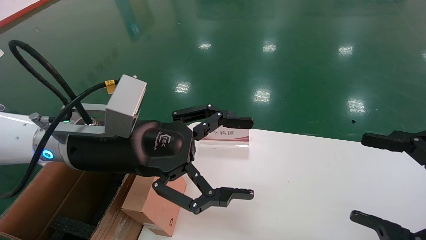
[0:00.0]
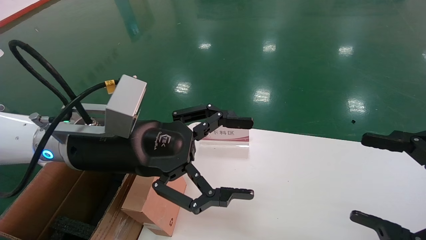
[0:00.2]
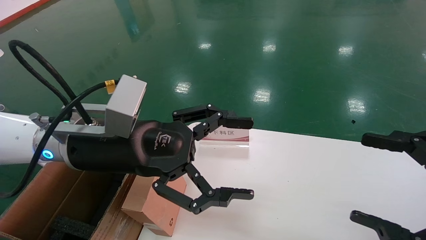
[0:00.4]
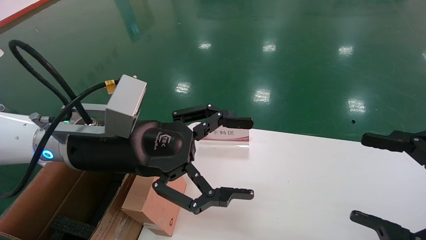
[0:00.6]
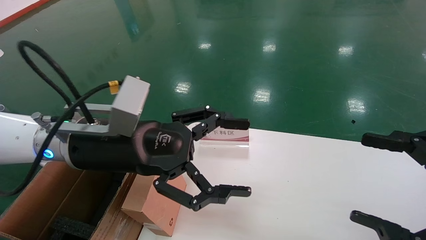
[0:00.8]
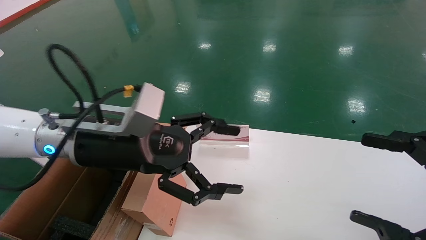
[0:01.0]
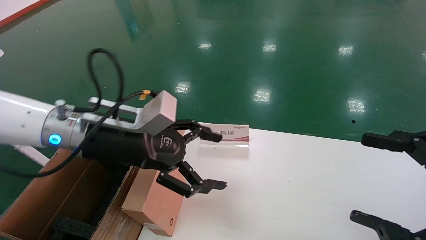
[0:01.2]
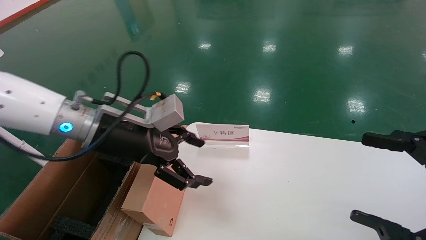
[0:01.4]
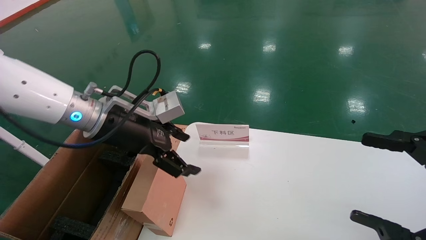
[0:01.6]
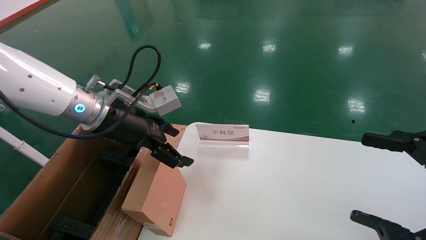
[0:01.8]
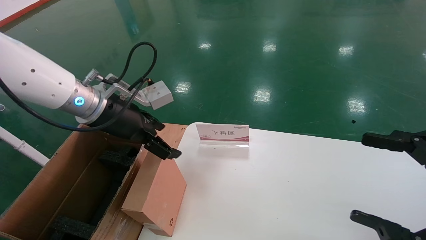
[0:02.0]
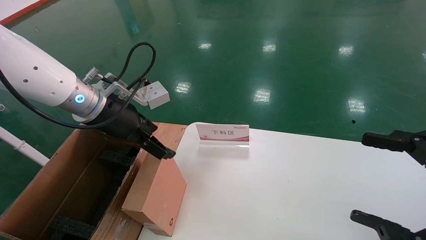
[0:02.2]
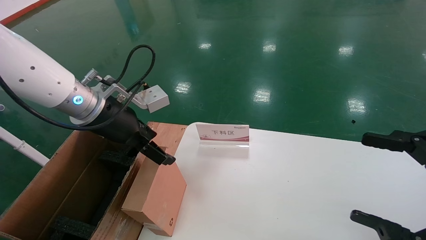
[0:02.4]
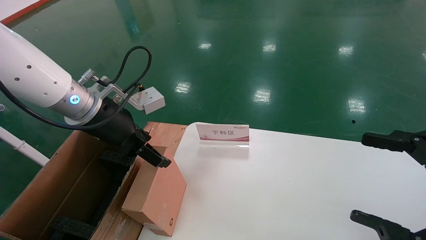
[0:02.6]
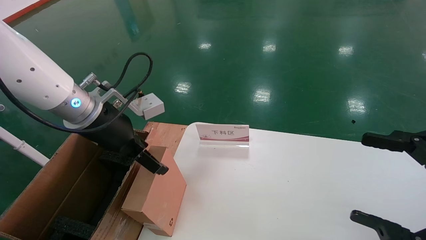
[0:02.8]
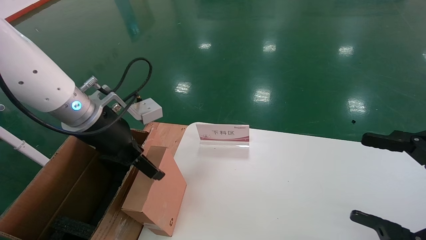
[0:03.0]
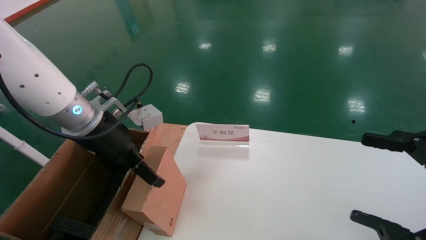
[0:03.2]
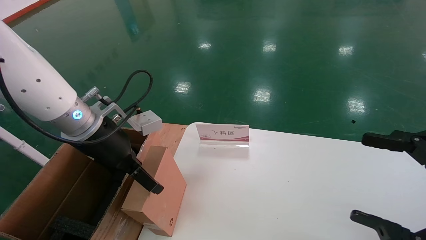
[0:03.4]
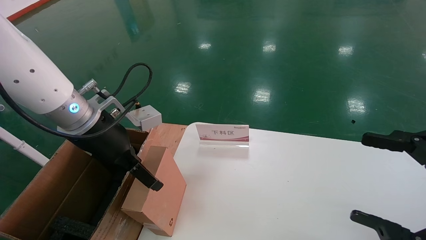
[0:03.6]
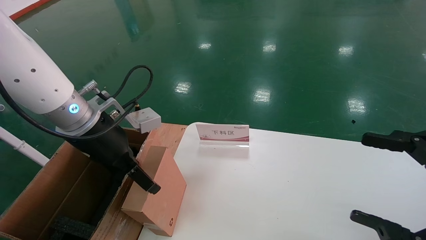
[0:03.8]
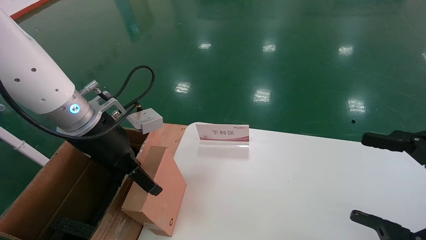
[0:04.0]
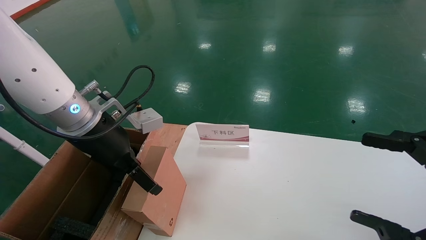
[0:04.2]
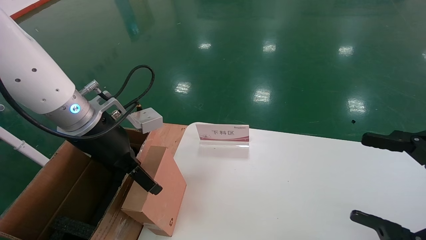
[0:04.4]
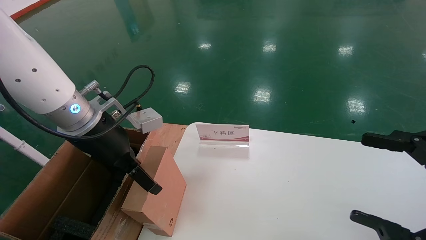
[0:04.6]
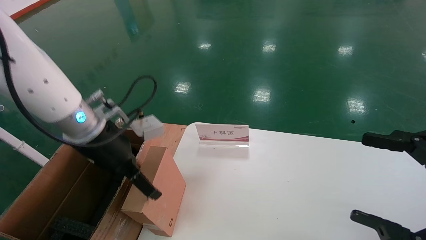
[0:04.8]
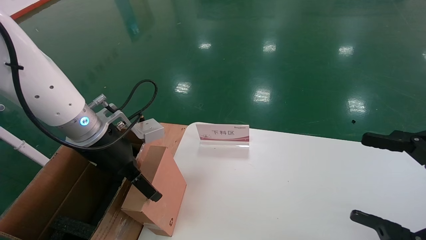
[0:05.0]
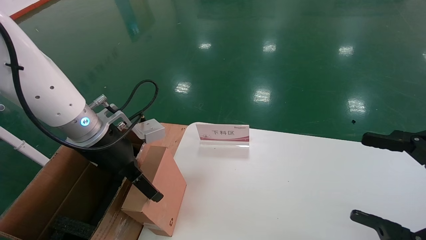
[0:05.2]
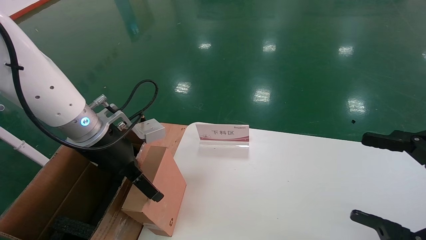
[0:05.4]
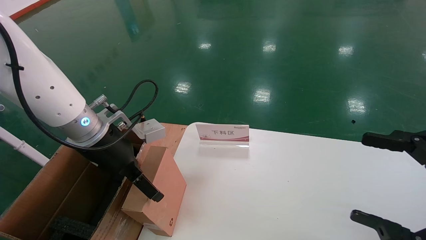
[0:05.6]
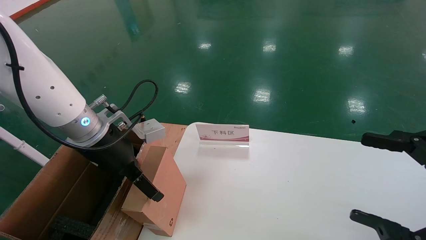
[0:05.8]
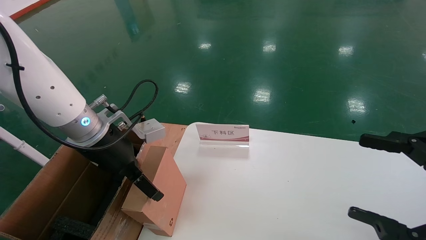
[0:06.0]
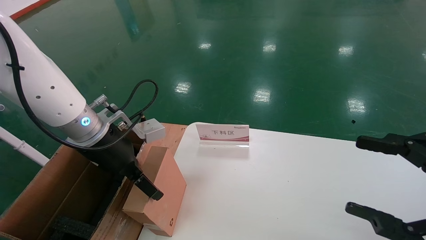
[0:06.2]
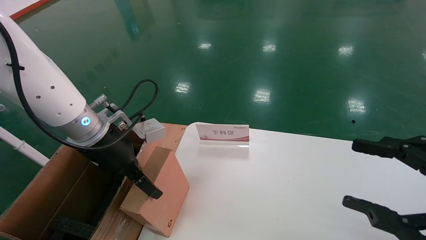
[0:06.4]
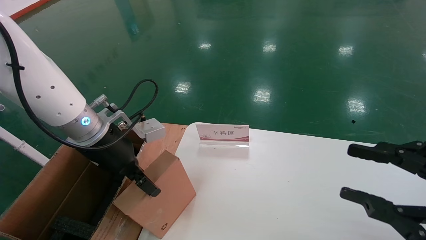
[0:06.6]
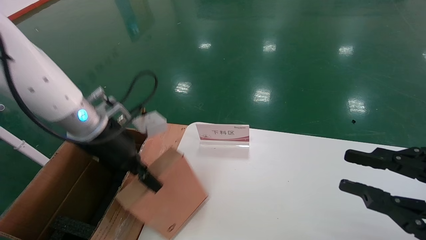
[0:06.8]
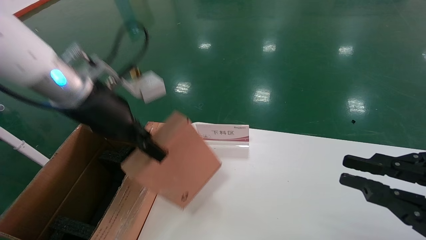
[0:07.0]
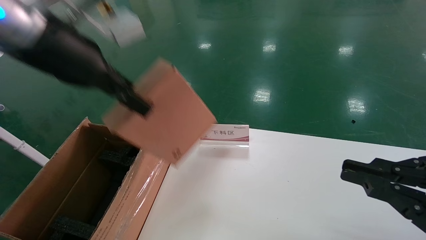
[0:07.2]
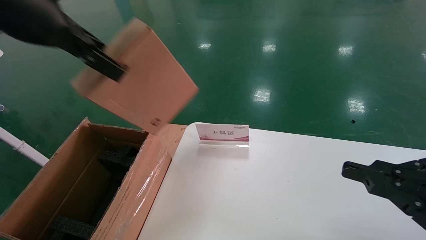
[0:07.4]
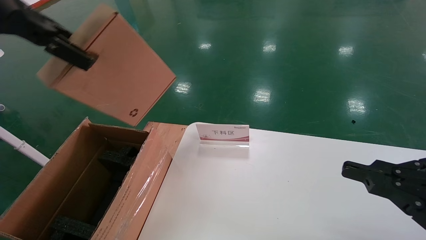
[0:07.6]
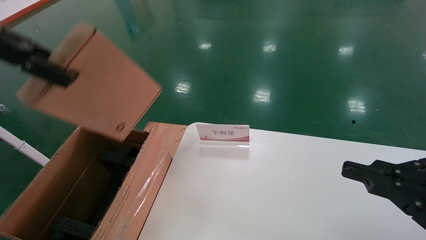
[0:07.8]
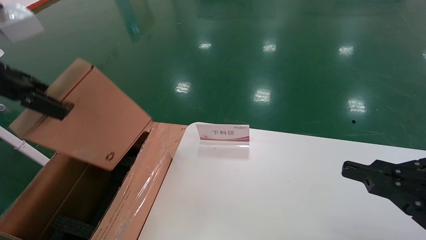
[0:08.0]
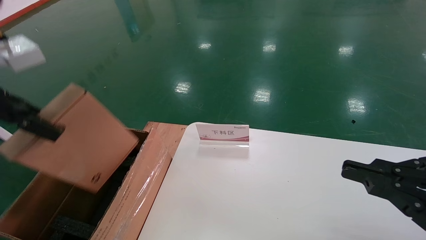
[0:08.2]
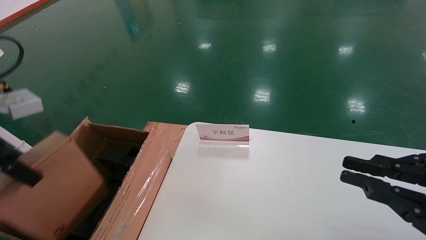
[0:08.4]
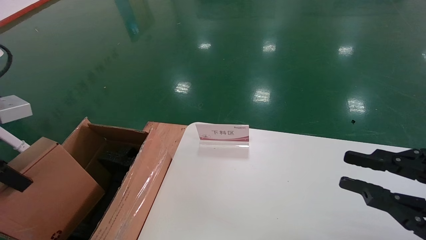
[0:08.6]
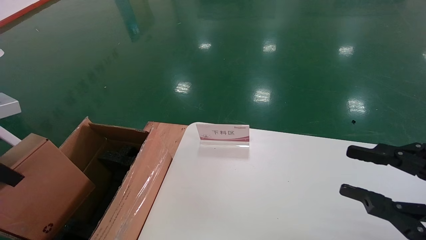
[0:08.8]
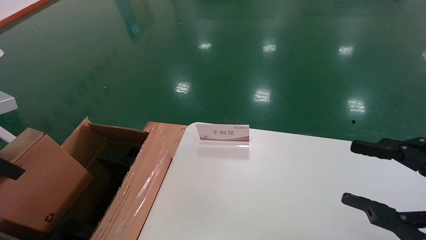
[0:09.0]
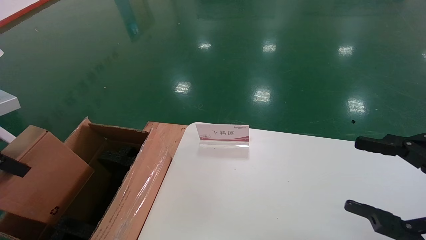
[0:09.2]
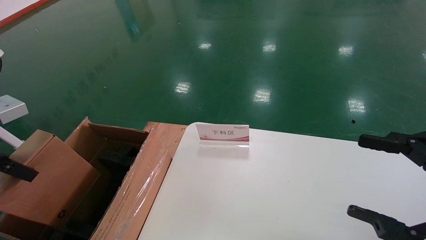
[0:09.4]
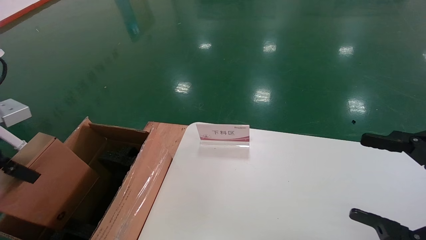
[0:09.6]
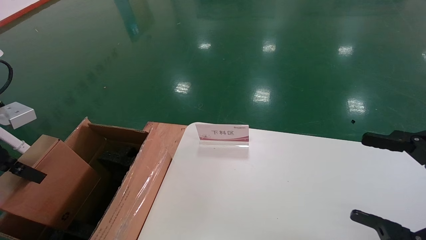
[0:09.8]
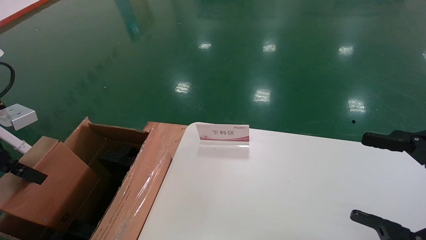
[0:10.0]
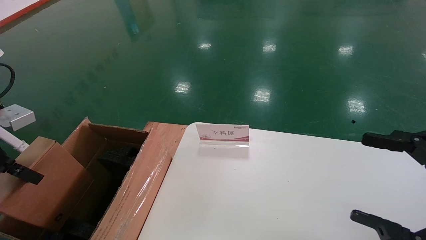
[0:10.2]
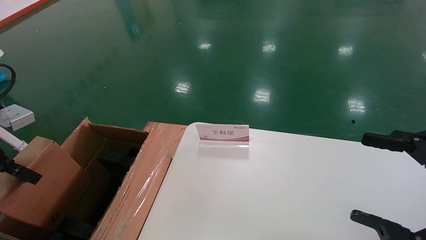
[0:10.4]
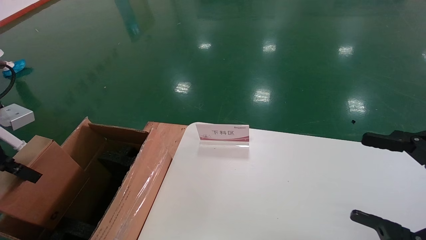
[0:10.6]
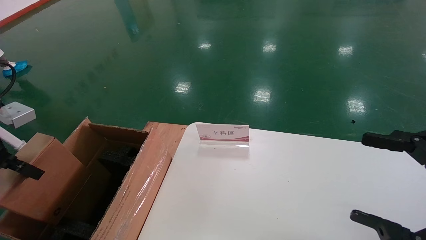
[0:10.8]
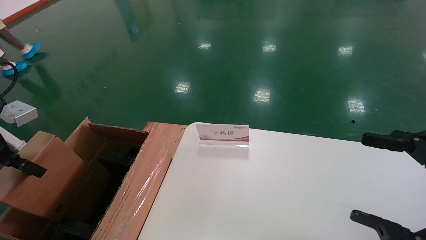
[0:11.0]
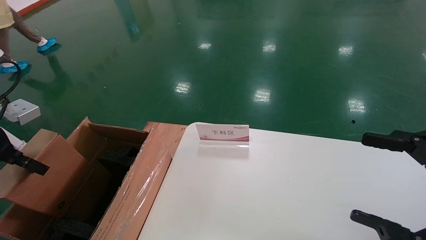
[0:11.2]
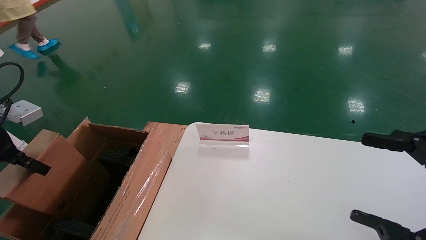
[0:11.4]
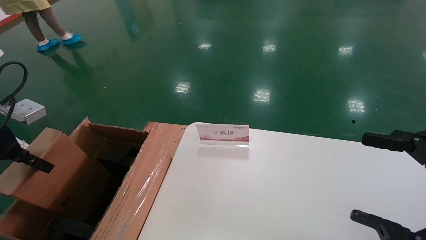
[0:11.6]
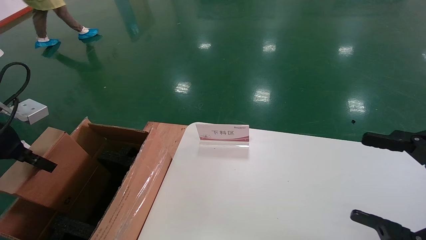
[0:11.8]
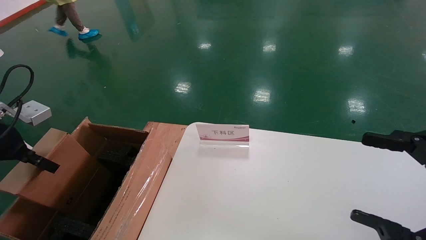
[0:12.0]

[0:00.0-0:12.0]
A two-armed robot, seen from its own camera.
Task of the whole recording: pick up the small cardboard box and load it into the large cardboard box.
Step, 0:01.0 to 0:06.6: Pick up the mouse and power cord box.
0:00.0 to 0:01.6: The left gripper travels forward by approximately 5 cm.
0:03.0 to 0:06.0: The grippers make only small movements.
0:06.0 to 0:07.6: The left gripper goes roughly 25 cm upward and backward, and closes its fingers. Meanwhile the right gripper closes.
0:07.6 to 0:09.0: The left gripper is displaced downward and to the left by roughly 20 cm. The right gripper opens.
0:09.0 to 0:10.4: The right gripper opens its fingers, while the left gripper changes place by some 5 cm.
0:10.4 to 0:12.0: The grippers move only a little.

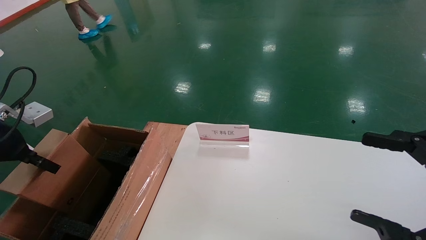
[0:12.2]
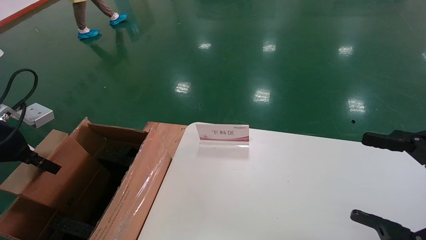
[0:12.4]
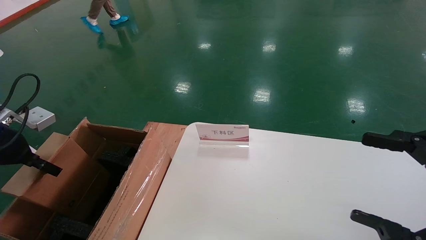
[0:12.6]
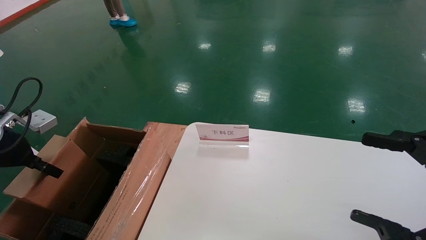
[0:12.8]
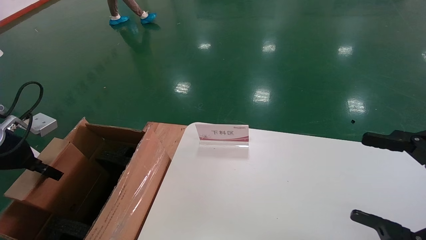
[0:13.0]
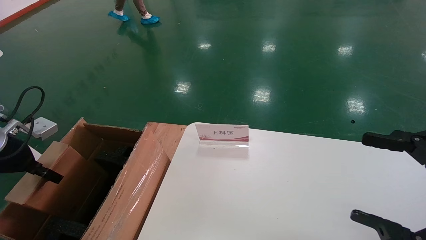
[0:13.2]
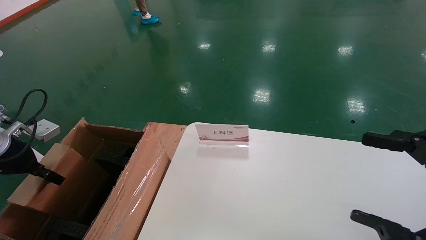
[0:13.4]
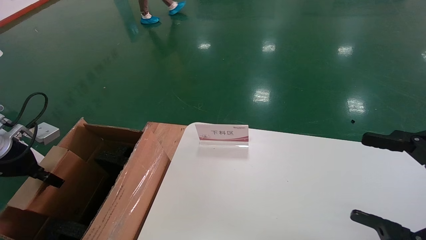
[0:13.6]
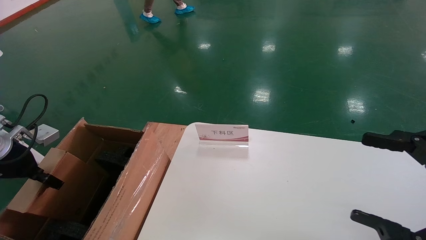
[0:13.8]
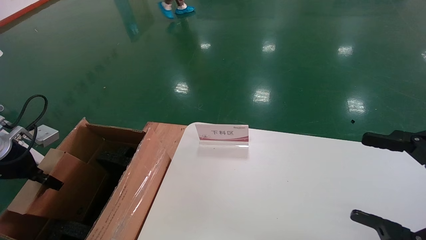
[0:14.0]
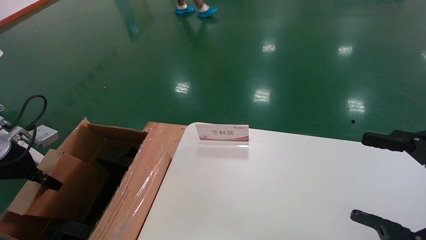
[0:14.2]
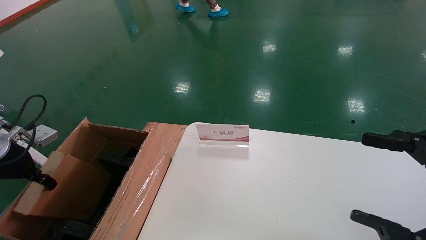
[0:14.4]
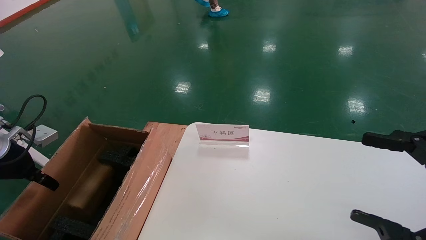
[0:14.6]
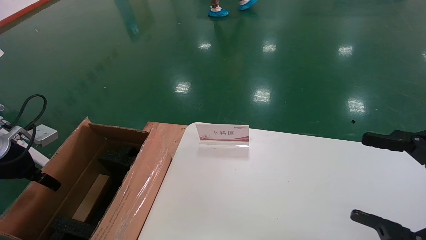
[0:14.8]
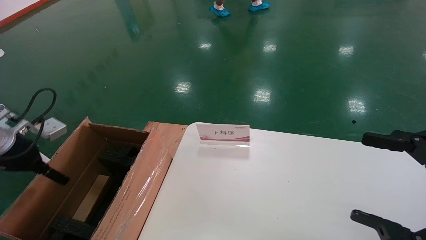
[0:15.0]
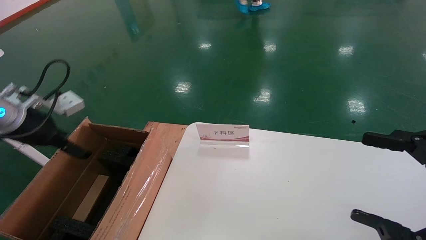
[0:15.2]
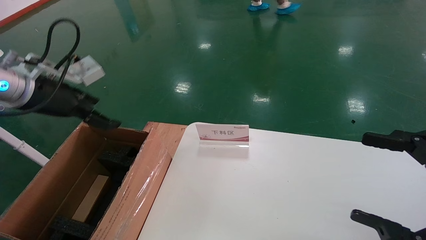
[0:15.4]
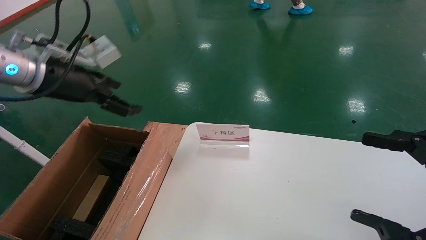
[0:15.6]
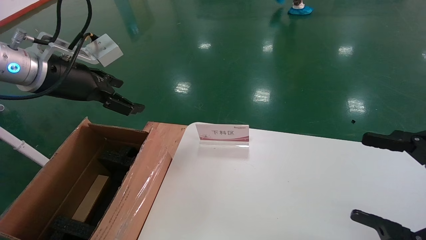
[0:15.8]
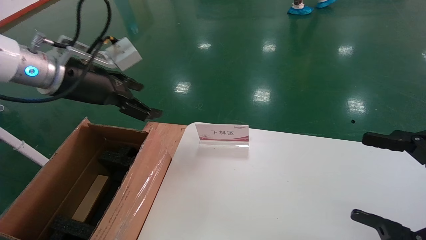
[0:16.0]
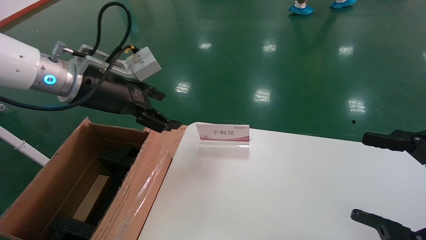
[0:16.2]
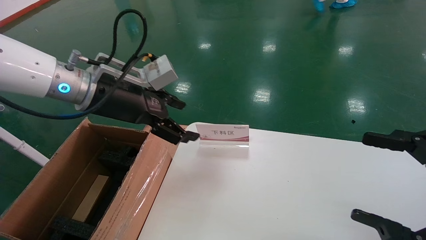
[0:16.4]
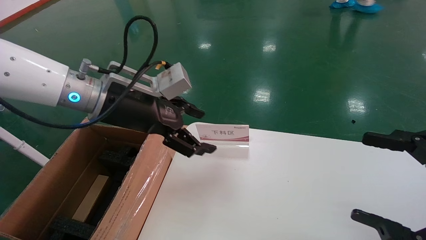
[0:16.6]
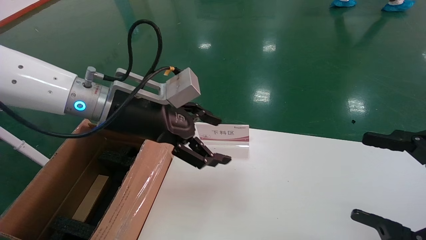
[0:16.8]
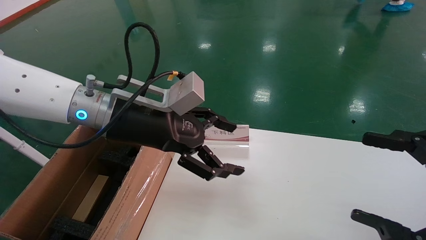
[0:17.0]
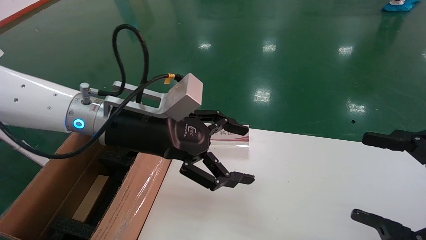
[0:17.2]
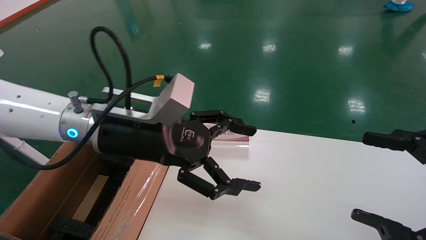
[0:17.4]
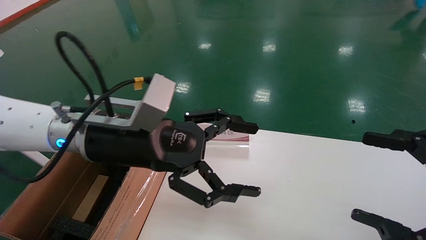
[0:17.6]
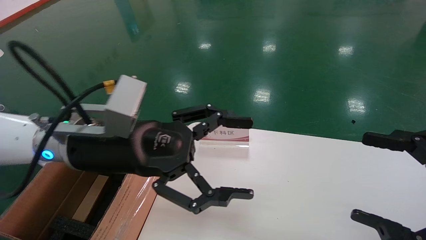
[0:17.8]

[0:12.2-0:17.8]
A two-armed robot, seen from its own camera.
Task of the whole recording: pick up the small cardboard box and load it into the large cardboard box.
Step, 0:12.2 to 0:14.4: Place the mouse and power cord box into the case.
0:12.2 to 0:13.6: The left gripper heads downward, covering approximately 5 cm.
0:13.6 to 0:15.0: The left gripper opens up.
0:15.0 to 0:16.4: The left gripper heads to the right and upward, covering roughly 20 cm.
0:16.4 to 0:17.8: The left gripper goes some 10 cm backward and downward.
